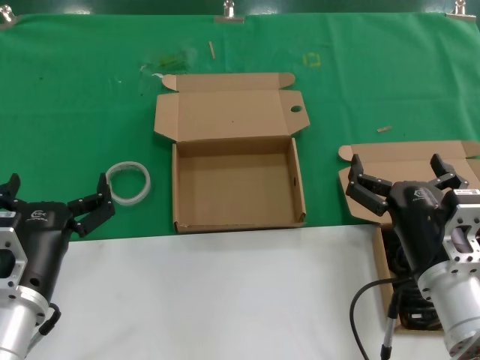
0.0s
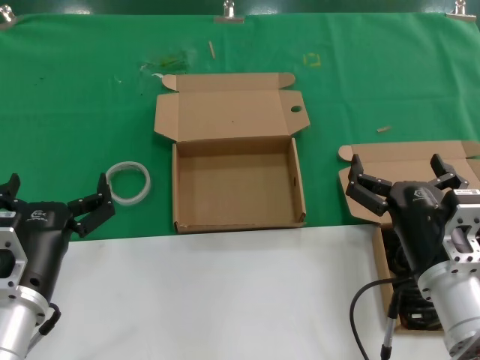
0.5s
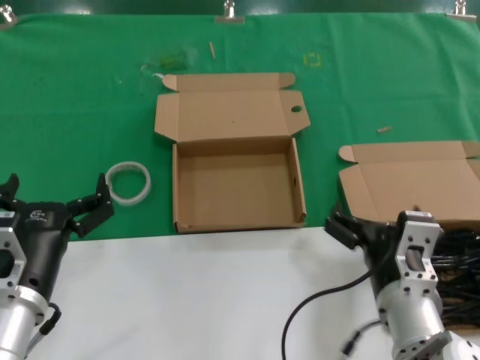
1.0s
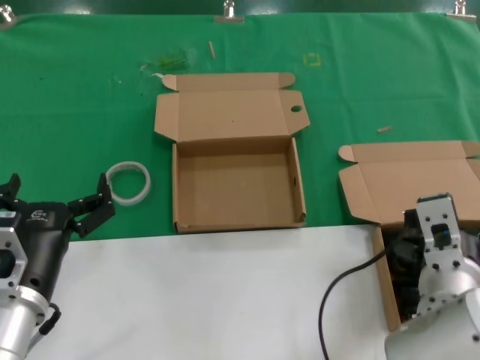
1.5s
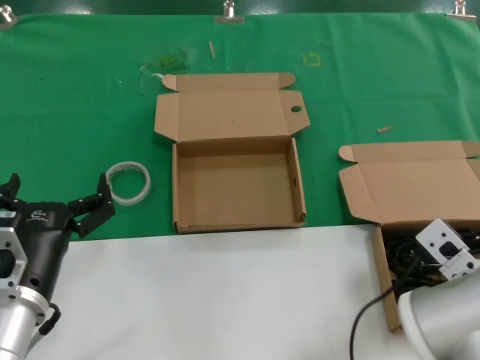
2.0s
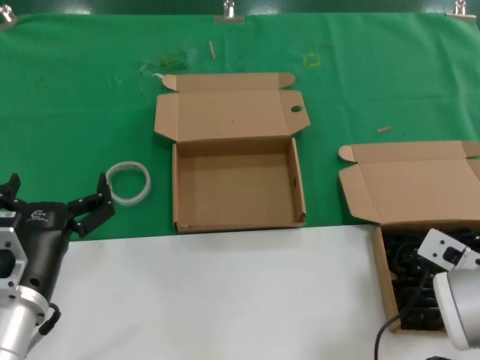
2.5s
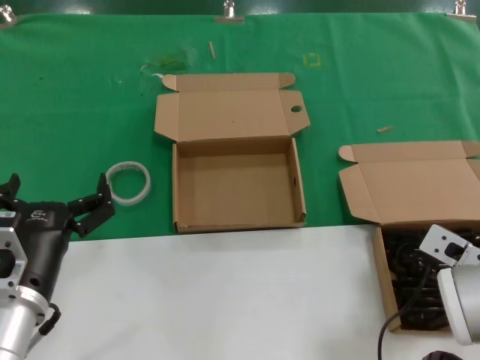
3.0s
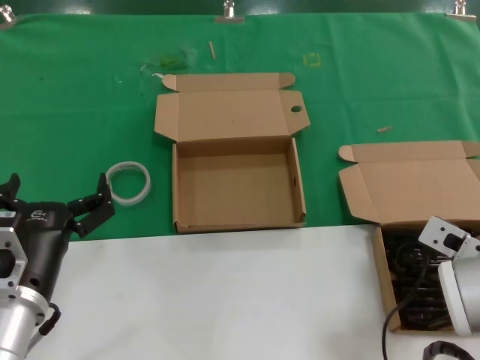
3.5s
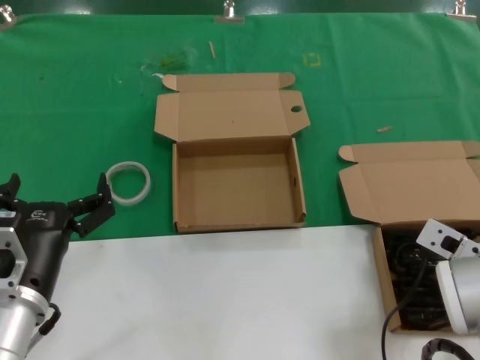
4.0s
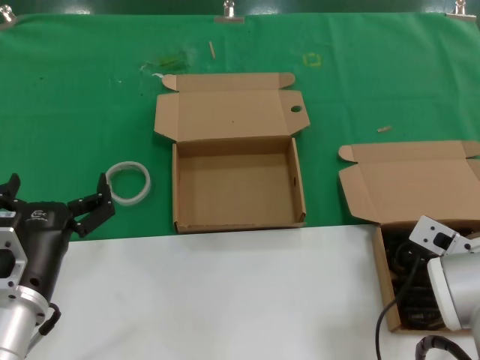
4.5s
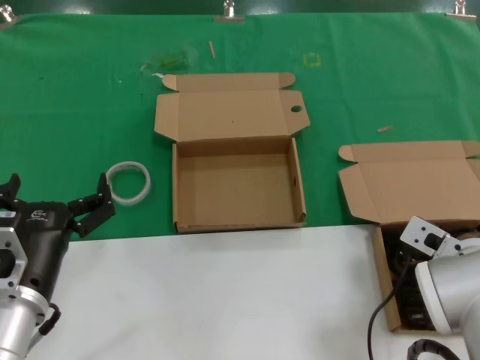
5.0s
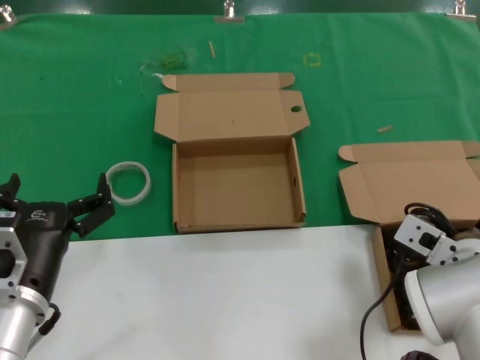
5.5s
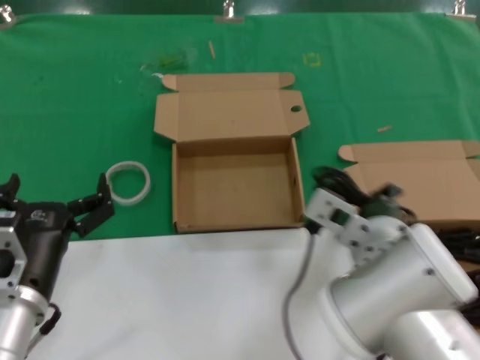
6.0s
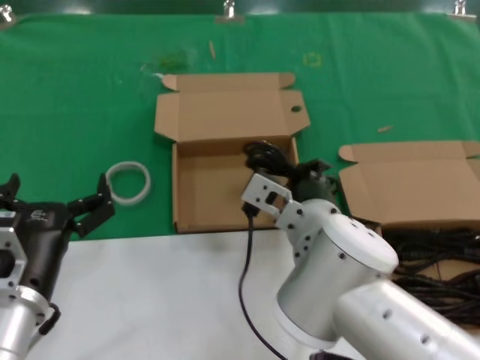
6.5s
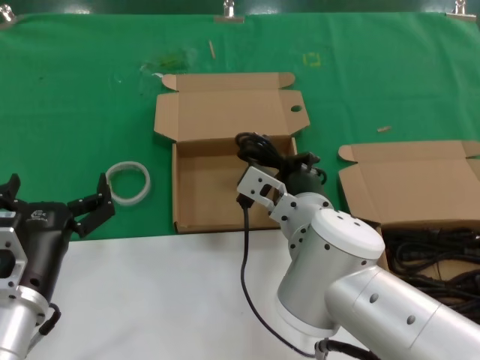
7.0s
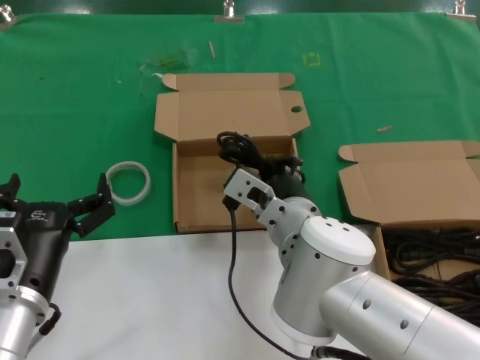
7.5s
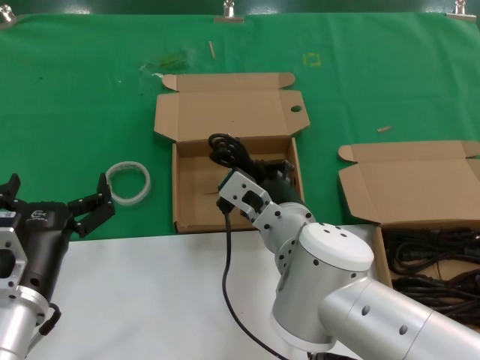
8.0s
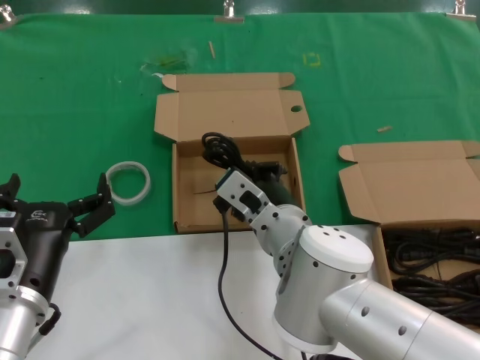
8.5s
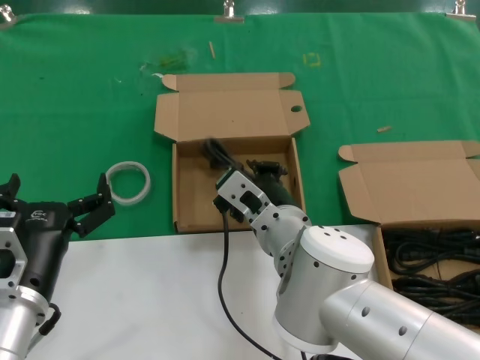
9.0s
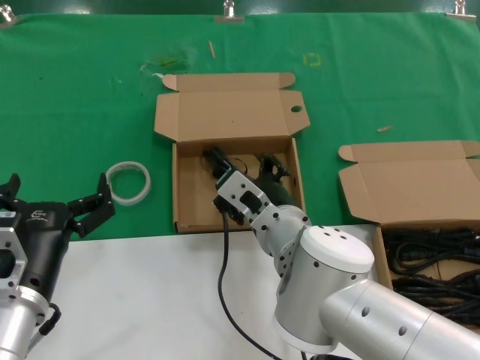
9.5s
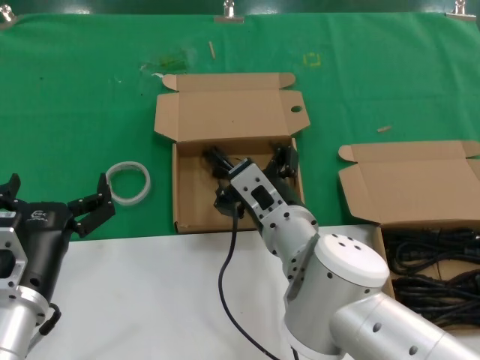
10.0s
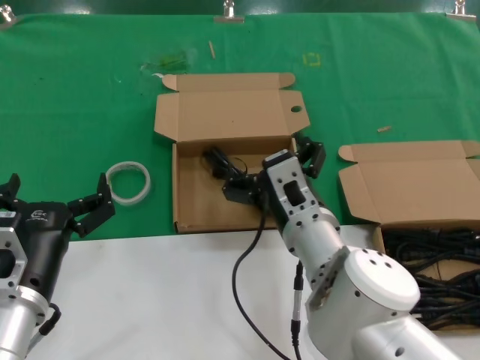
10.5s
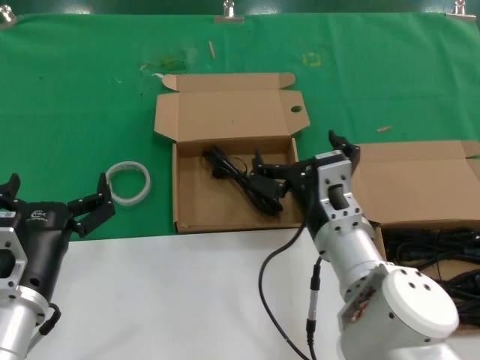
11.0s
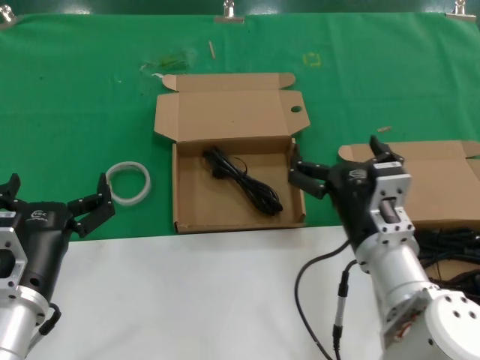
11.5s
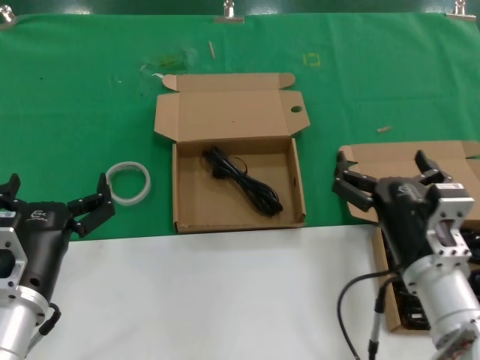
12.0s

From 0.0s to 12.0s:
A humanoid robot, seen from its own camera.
Task of the whole recording: take the parts from the box containing them and put them into an empty box.
Step, from 0.0s to 4.5s: Grasp the data cable.
Step, from 5.0s to 9.5s: Place the data cable in the another box.
From 2.0s to 4.0s: The right hand shifts approximately 5 cm to the right.
From 4.0s to 6.0s: The right hand heads to the left, covering some 15 cm.
From 6.0s to 8.0s: The right hand goes about 10 cm to the left and forward.
From 8.0s to 10.0s: There are only small adjustments of the hands.
From 10.0s to 12.0s: The right hand moves to the right and backward, about 15 cm.

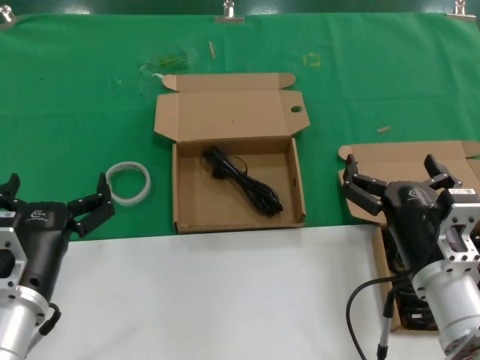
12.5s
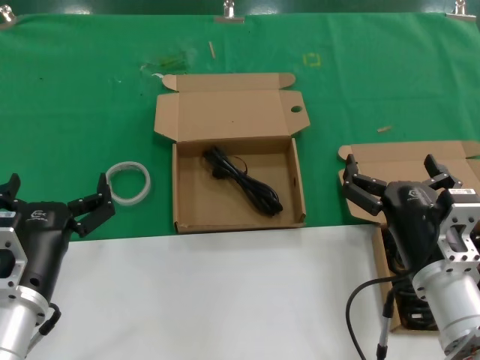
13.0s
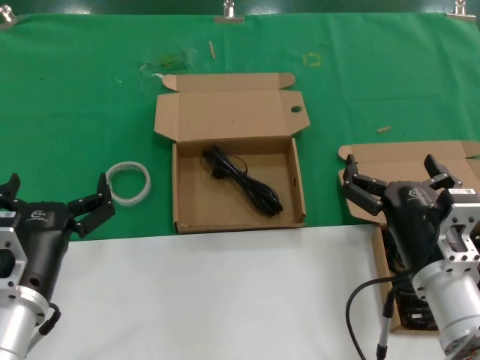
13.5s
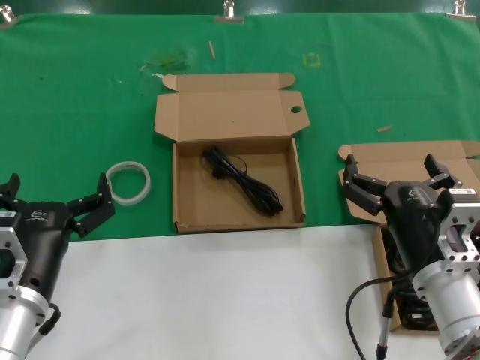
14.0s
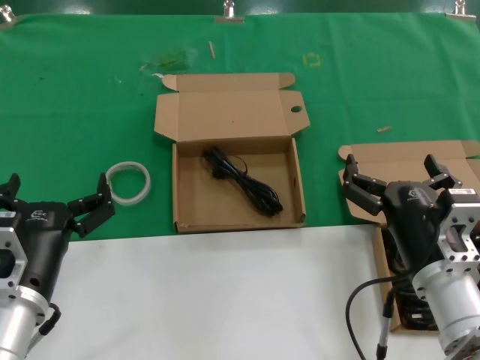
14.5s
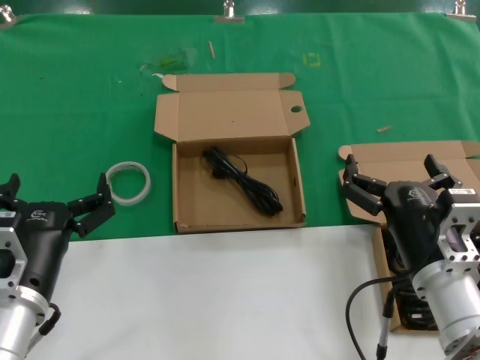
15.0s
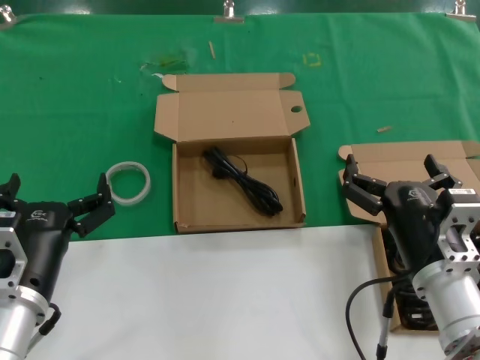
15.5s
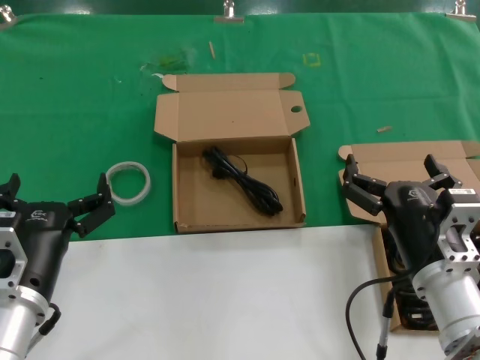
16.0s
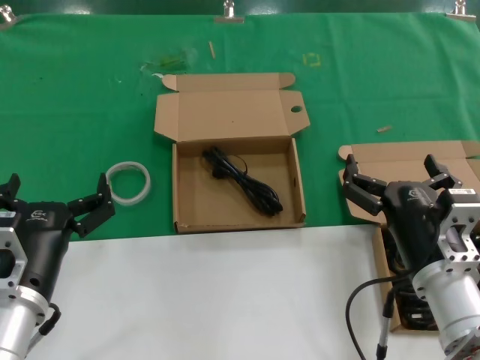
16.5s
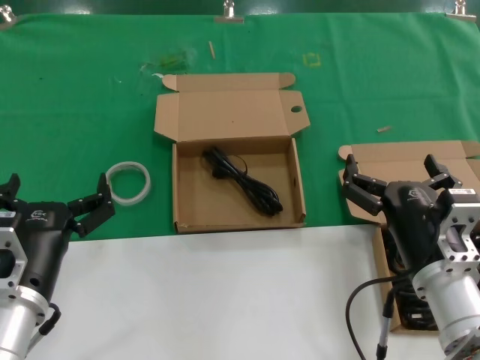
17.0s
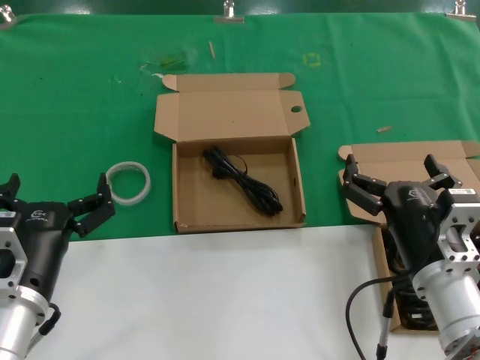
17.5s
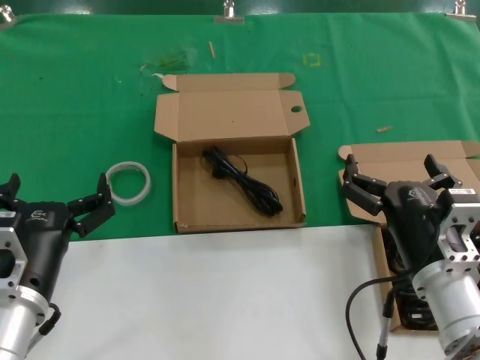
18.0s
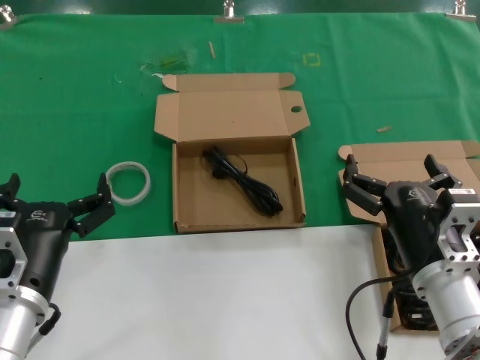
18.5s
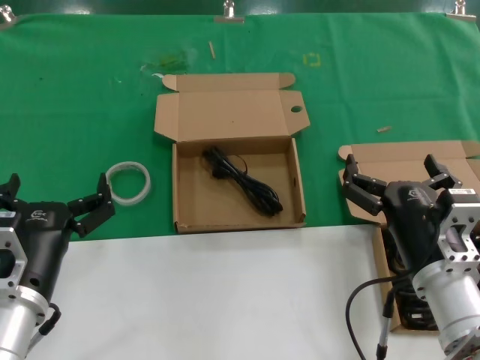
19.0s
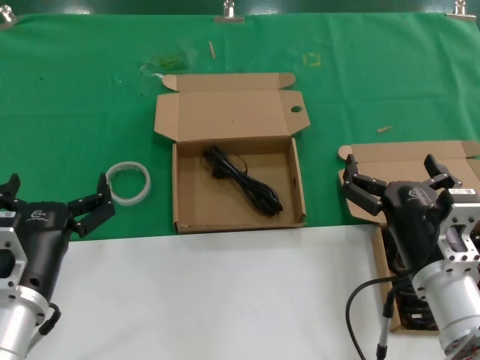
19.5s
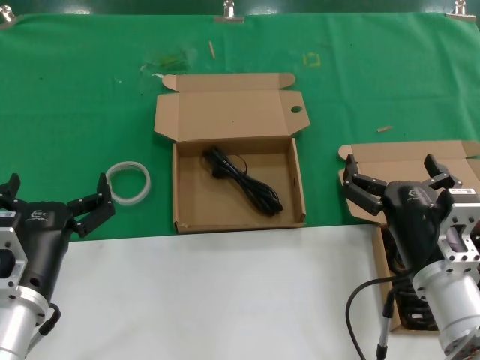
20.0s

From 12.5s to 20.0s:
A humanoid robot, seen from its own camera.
Task of the whole recording: take the parts from the box containing them and put them into an empty box.
From 12.5s to 20.0s: Both hands stay put.

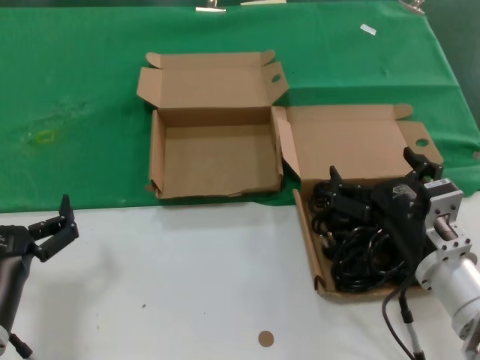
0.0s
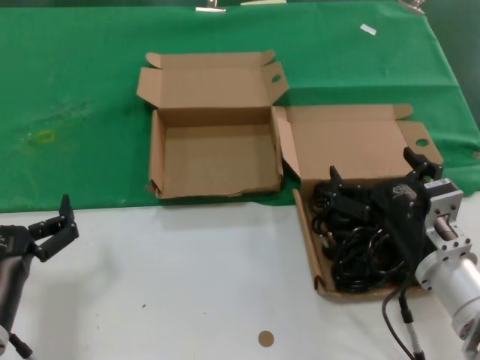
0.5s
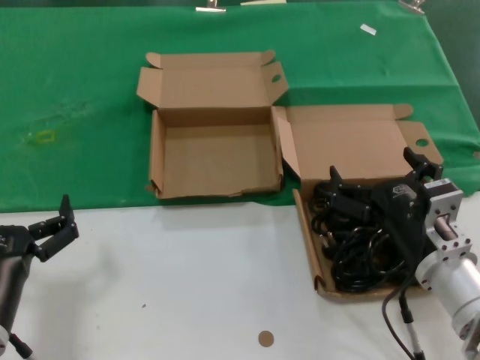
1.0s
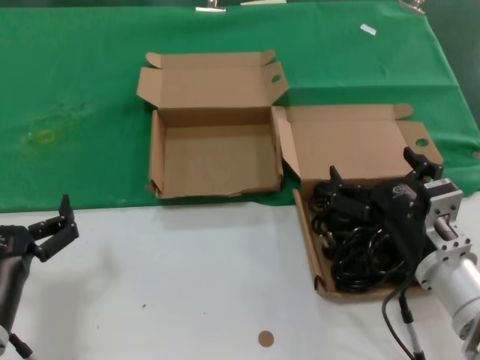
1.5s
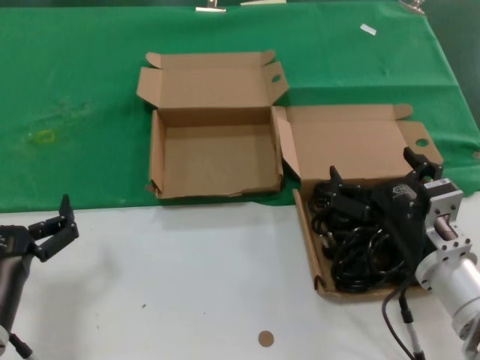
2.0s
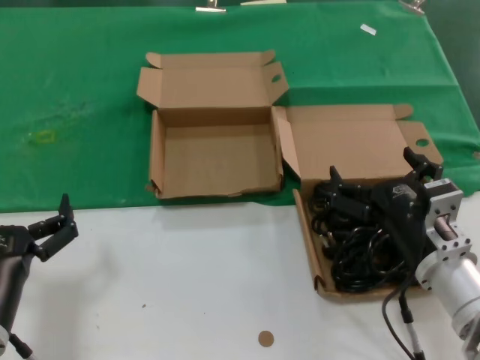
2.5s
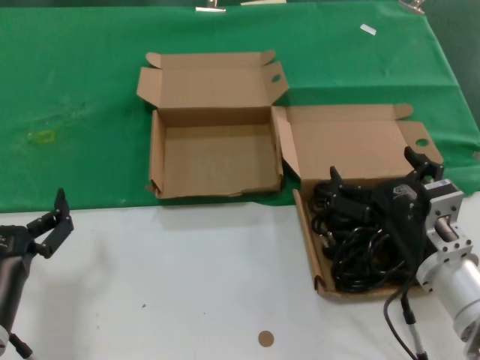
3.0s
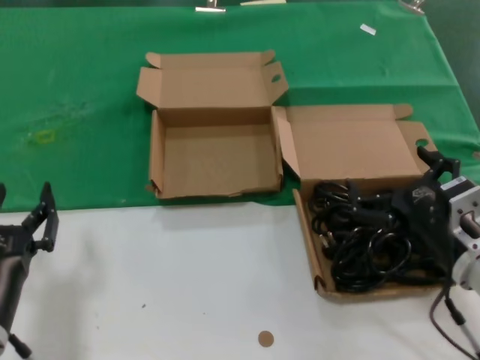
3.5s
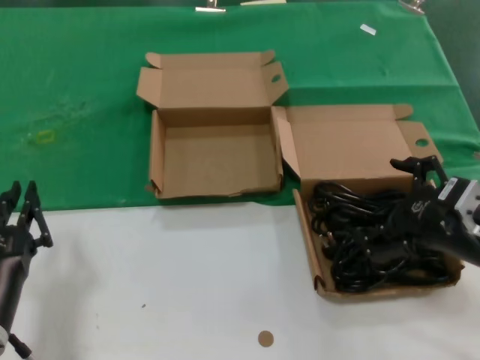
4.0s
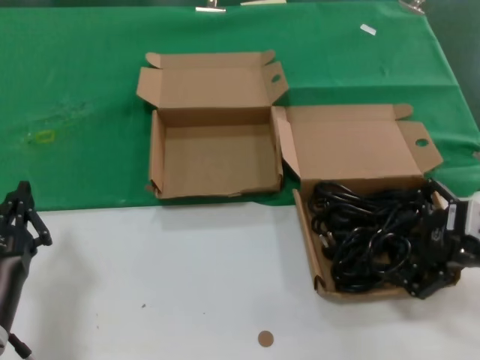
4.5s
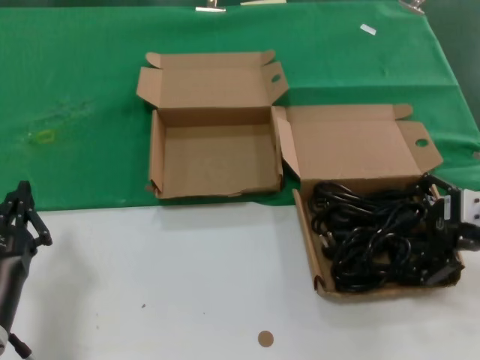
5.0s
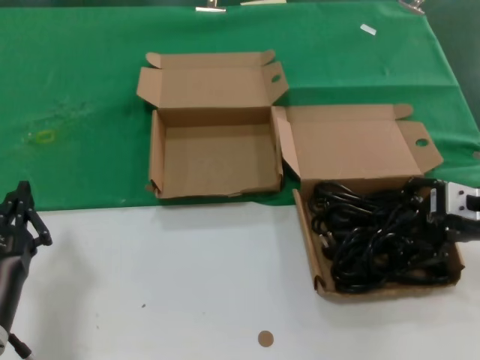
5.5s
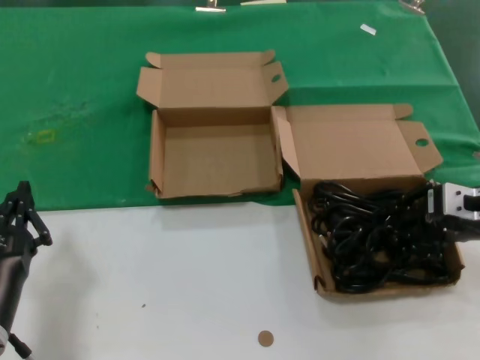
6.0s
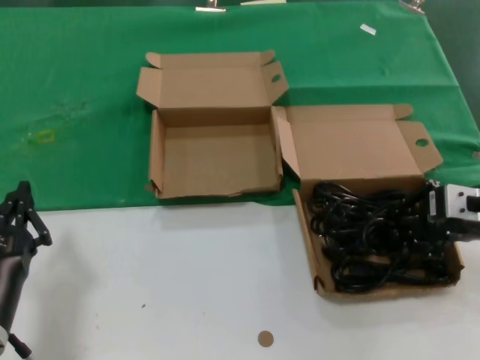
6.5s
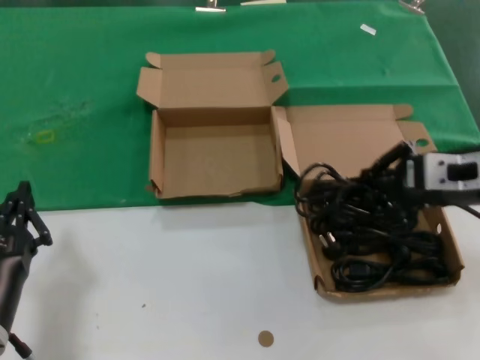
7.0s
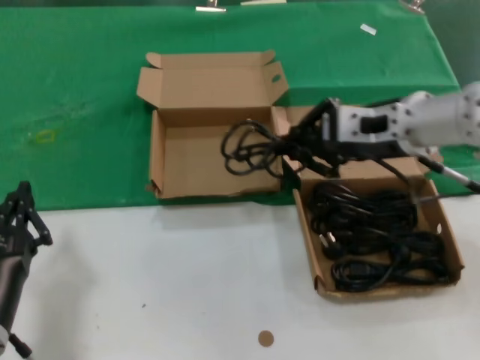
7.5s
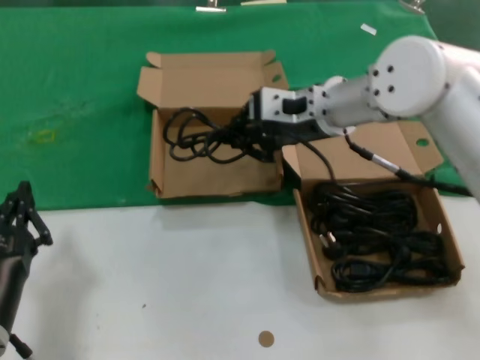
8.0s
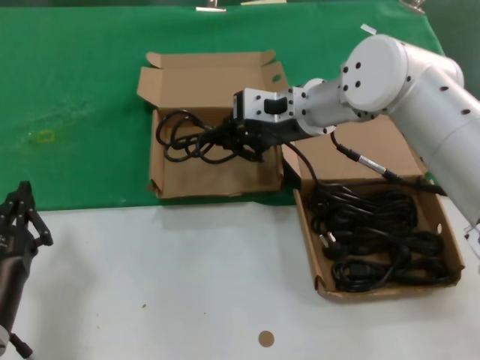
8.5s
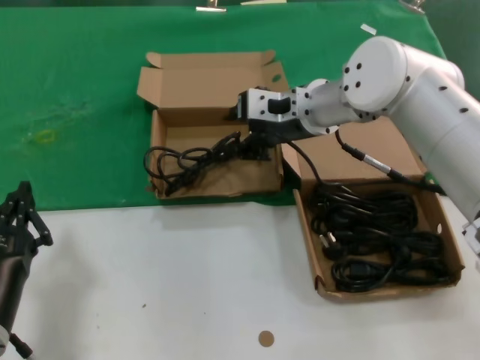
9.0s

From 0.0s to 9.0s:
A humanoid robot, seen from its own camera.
Task of the whole recording: take the parts from the box containing them and put them into an empty box.
Step, from 0.0s to 6.0s: Grasp the data cable.
Step, from 6.5s to 8.5s: Place the data cable in the another box.
From 0.0s to 2.0s: The two hands keep their place.
From 2.0s to 4.5s: The right hand travels to the right and upward by some 15 cm.
From 4.5s to 7.0s: The right hand is displaced upward and forward by about 10 cm.
From 7.0s to 9.0s: The right hand travels to the left and forward by approximately 25 cm.
